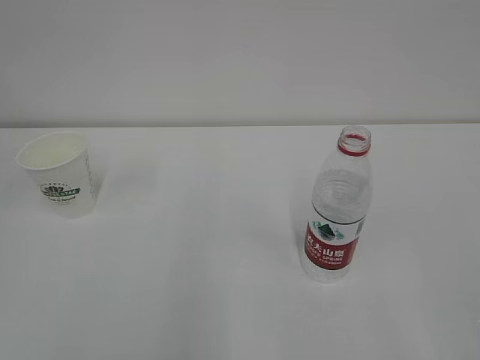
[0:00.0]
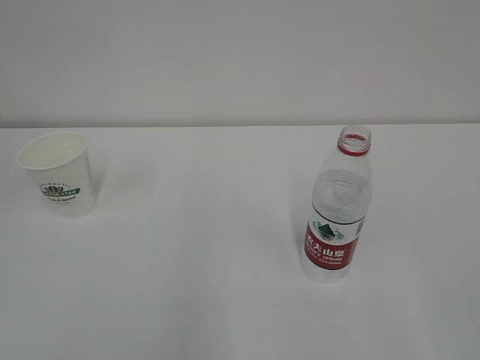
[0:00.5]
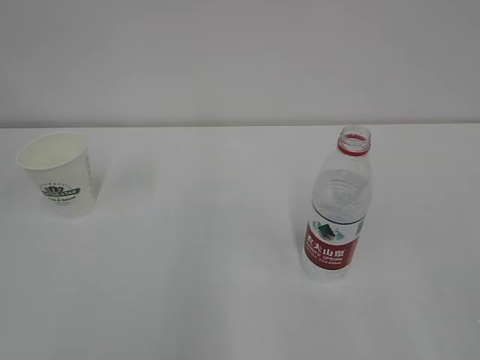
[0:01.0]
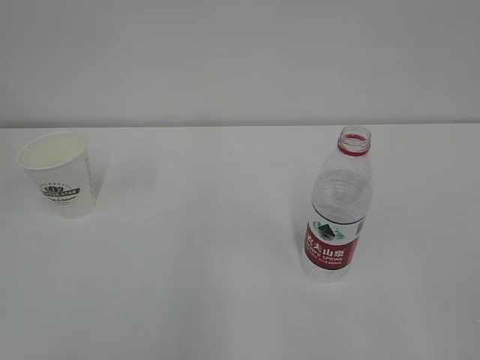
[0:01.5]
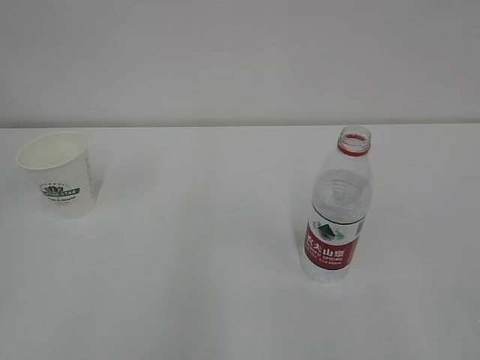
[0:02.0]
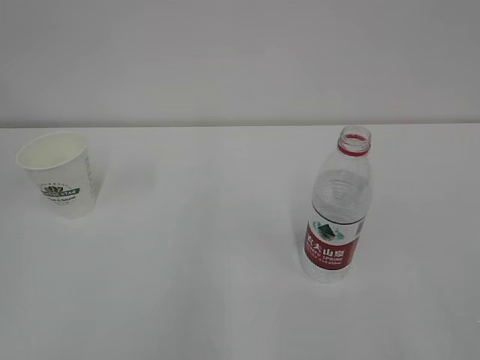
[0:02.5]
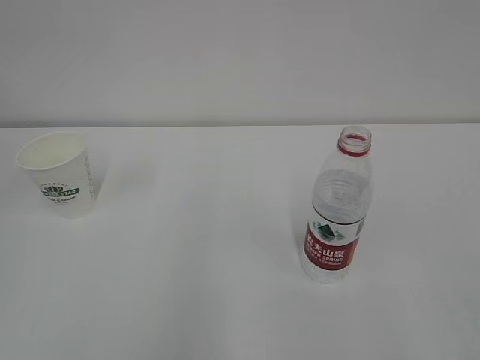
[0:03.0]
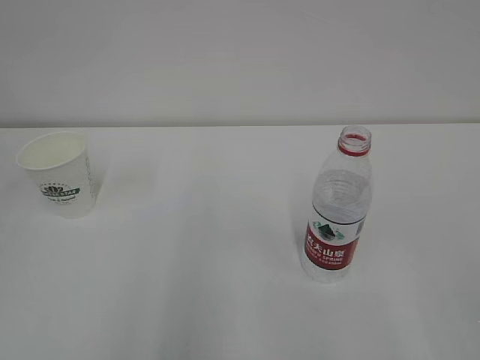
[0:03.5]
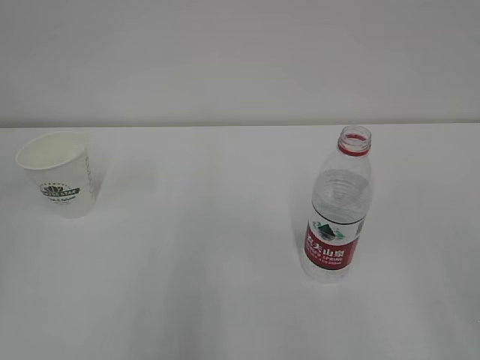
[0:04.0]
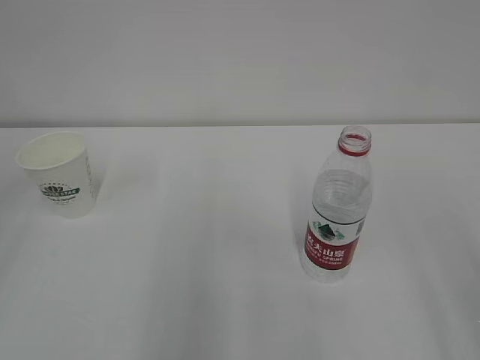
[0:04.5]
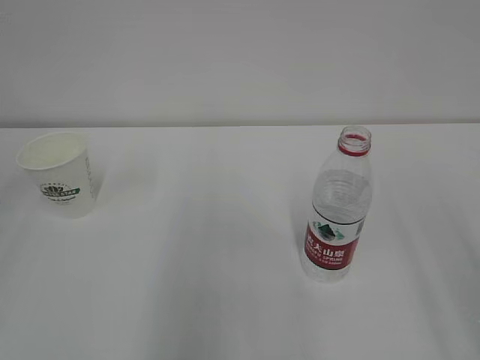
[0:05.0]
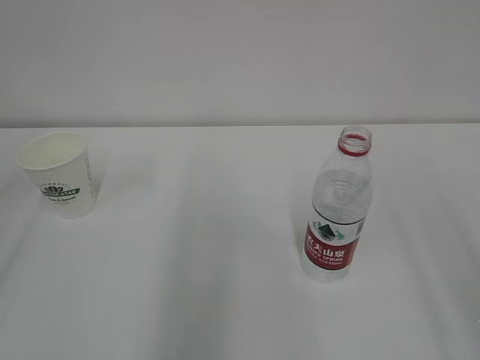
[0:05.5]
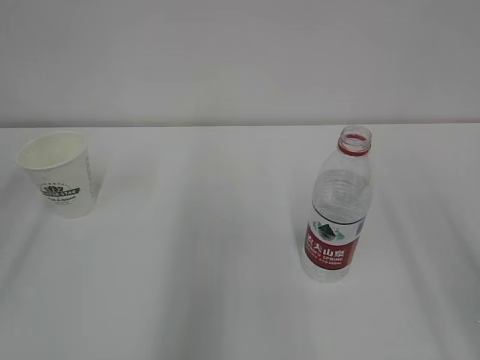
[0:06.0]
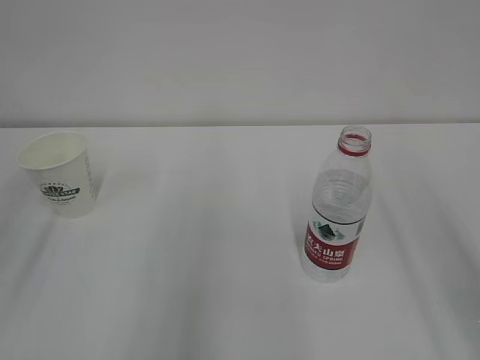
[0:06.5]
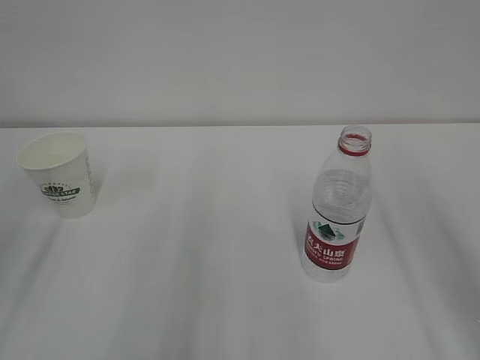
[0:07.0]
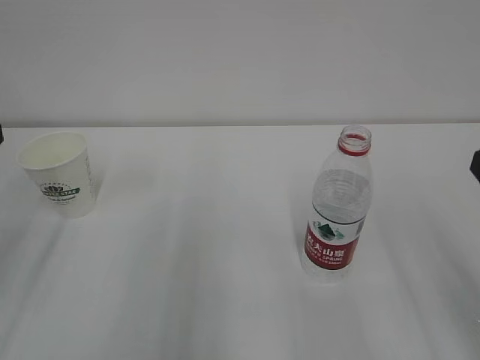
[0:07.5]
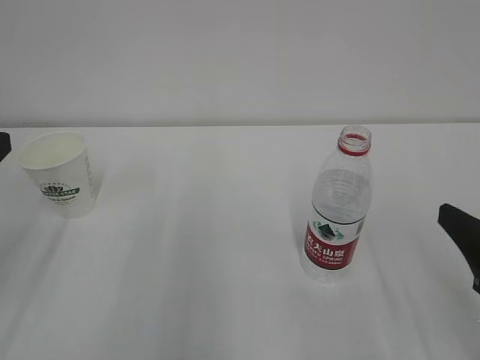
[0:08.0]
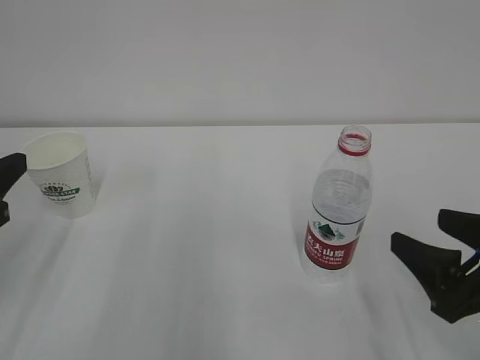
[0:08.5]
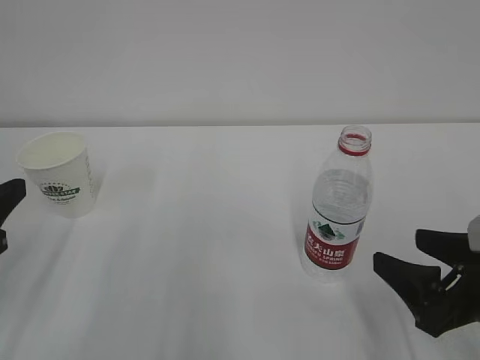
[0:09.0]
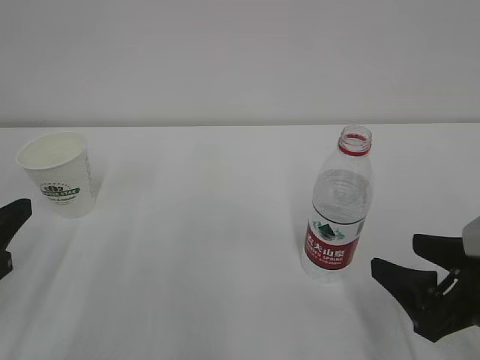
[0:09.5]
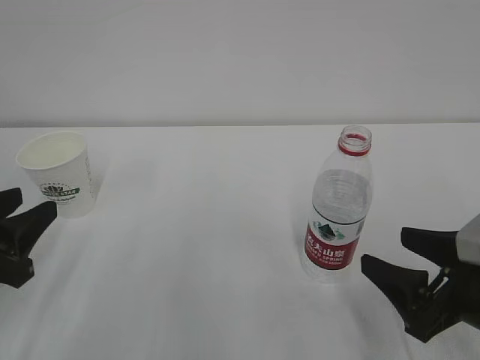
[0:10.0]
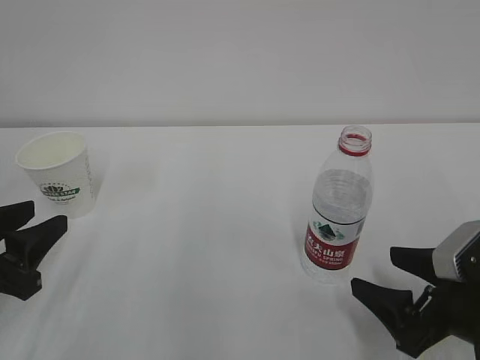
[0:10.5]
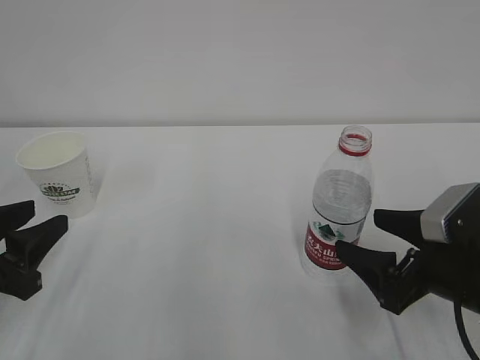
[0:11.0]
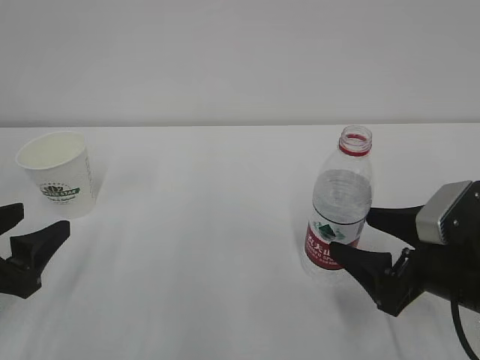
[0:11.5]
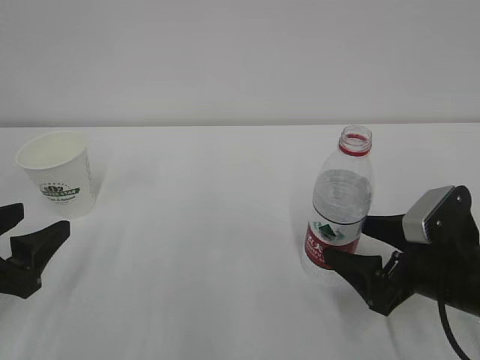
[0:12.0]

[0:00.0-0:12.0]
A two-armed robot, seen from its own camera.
6.0 to 8.0 s: The right gripper moves downward, roughly 15 cm.
8.0 to 10.0 s: Both grippers travel together downward, some 5 cm.
10.0 to 12.0 s: The right gripper travels forward by approximately 5 cm. Meanwhile the left gripper opens up.

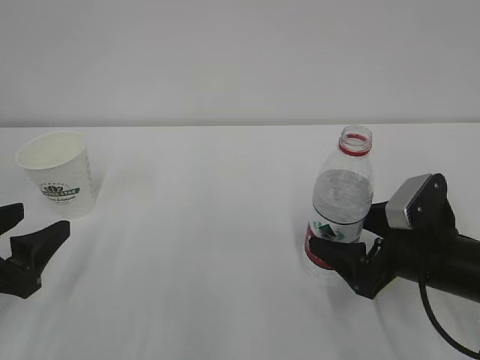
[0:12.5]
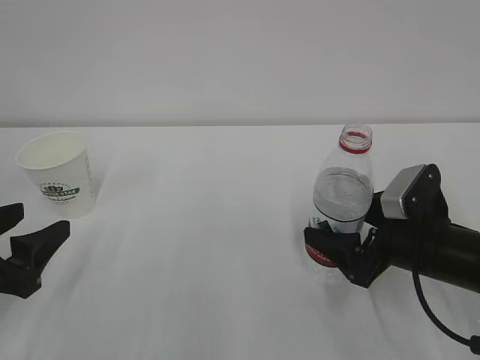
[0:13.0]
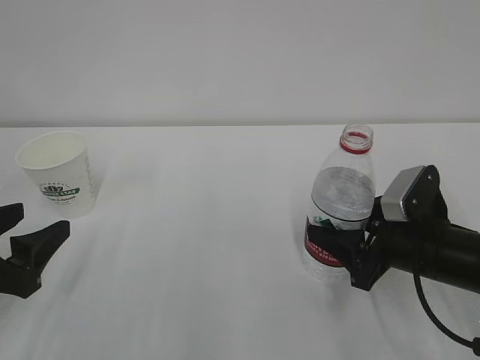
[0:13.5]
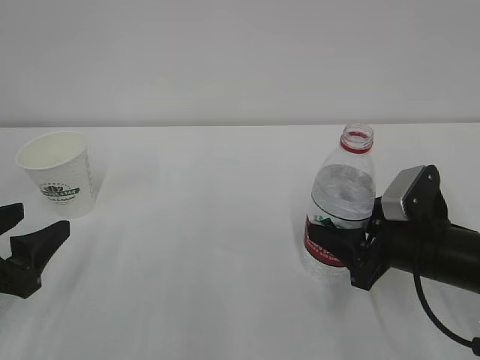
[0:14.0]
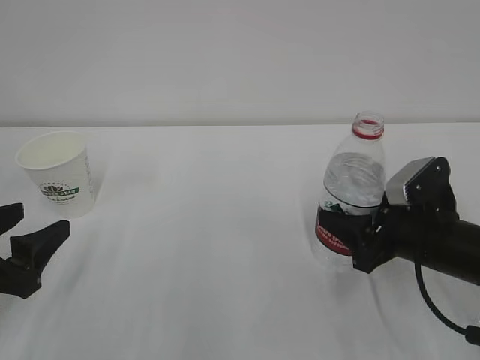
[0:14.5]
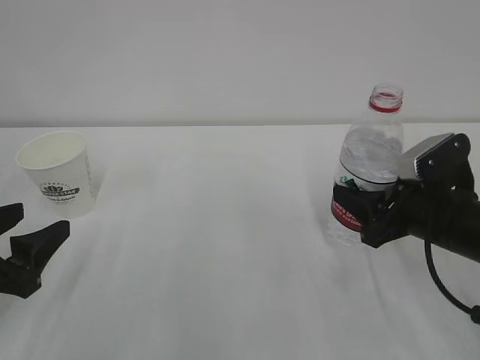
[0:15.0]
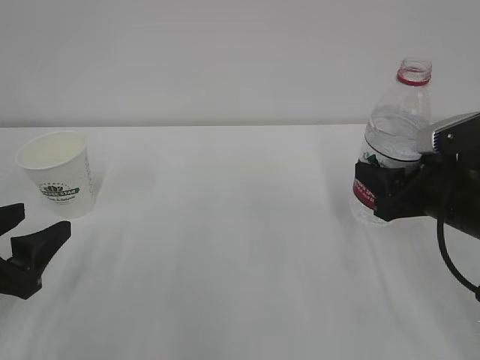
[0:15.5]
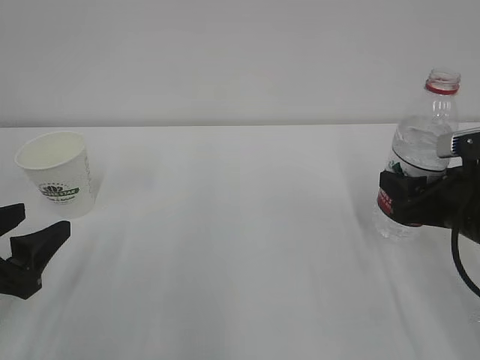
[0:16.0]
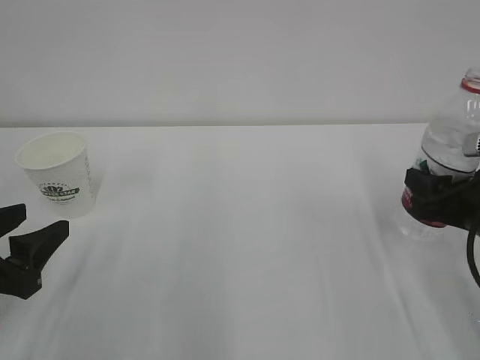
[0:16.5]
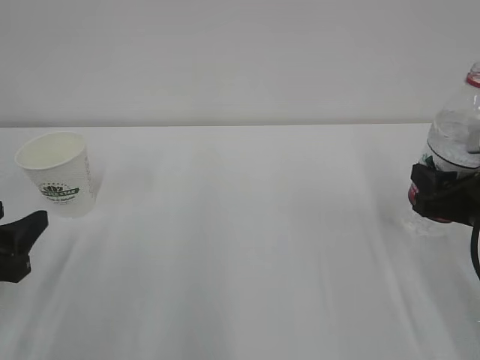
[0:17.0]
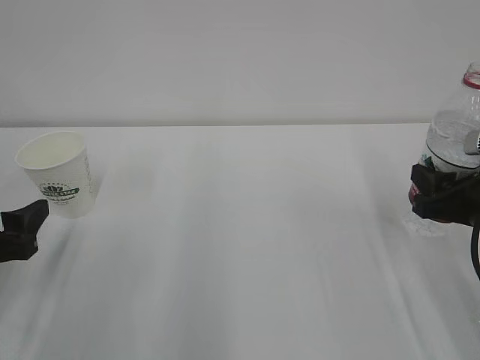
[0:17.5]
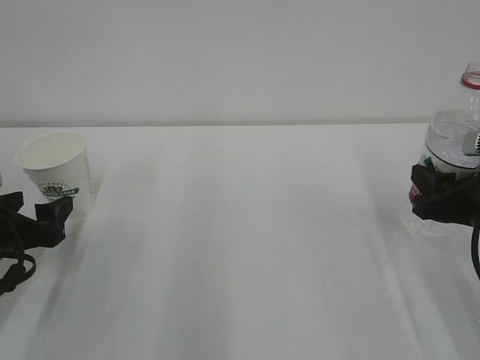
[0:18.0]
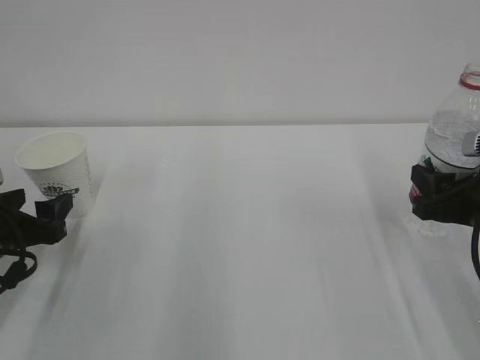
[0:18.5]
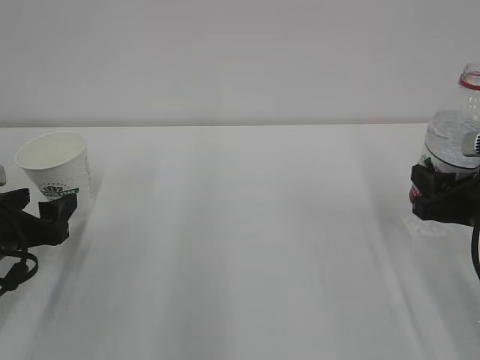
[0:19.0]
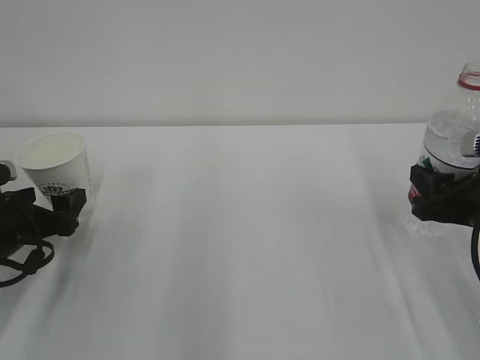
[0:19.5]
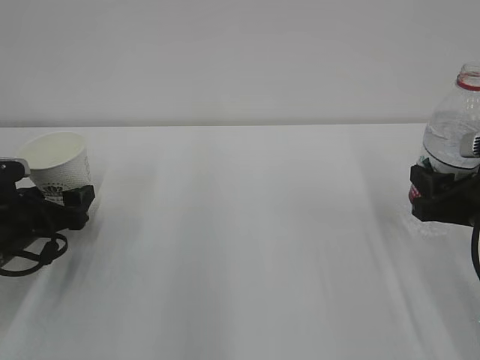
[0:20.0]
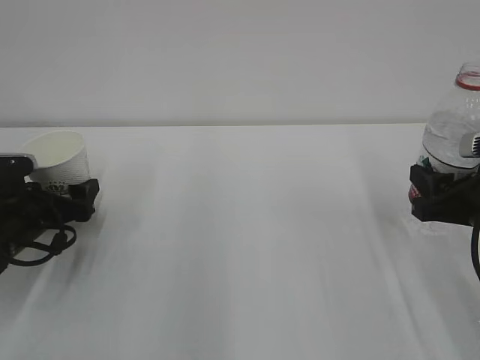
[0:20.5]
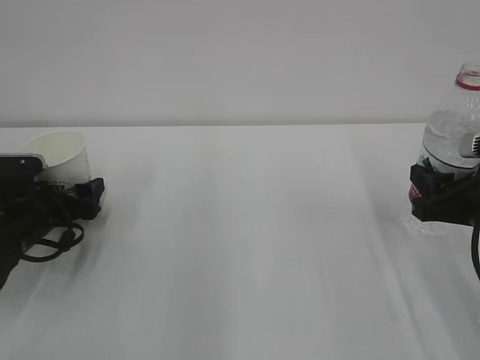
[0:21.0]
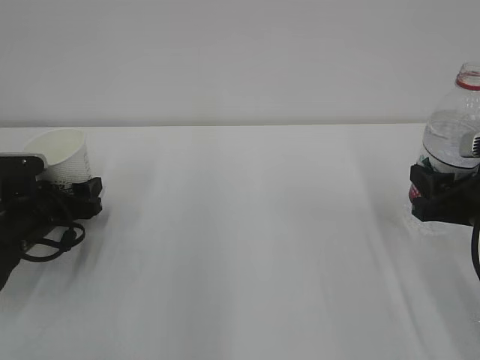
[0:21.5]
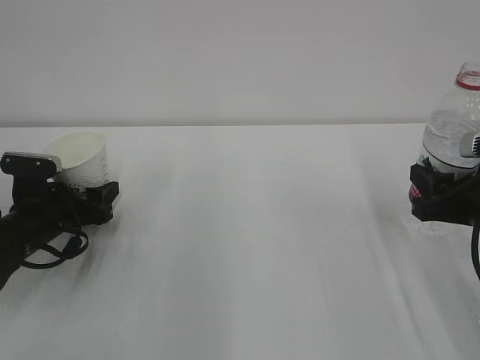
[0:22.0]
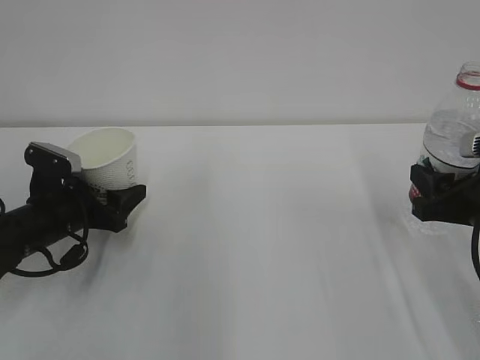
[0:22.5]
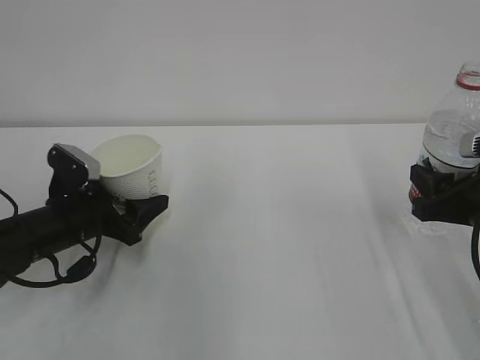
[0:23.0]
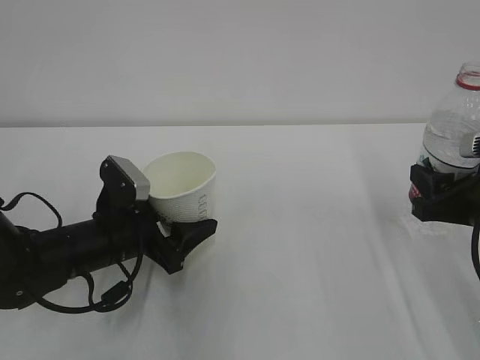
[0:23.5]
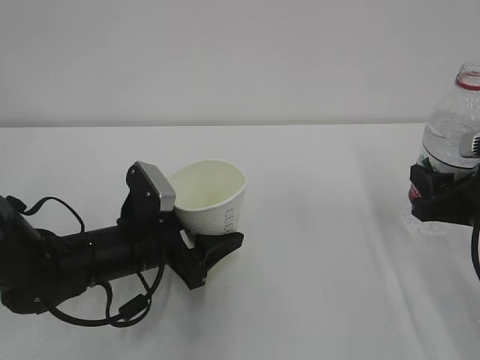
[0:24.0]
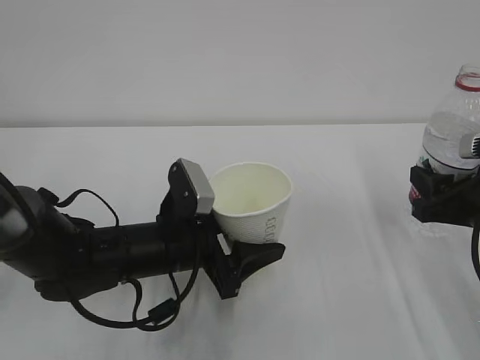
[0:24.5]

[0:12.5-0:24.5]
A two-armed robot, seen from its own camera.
12.5 to 14.5 s: The right gripper closes up.
14.5 to 16.5 s: The right gripper changes place by roughly 5 cm.
16.5 to 18.5 s: The left gripper goes about 5 cm forward.
18.5 to 20.5 s: The left gripper travels forward by roughly 5 cm, and opens its fingers.
20.5 to 22.5 s: The left gripper closes up.
22.5 to 24.5 s: The left gripper is displaced to the right by some 15 cm.

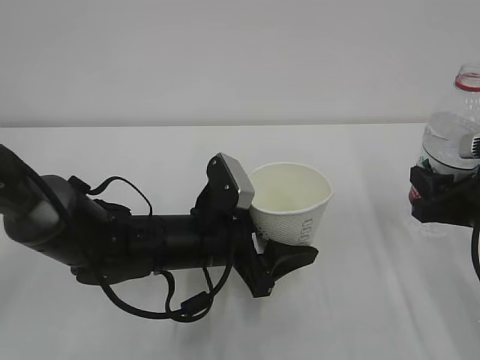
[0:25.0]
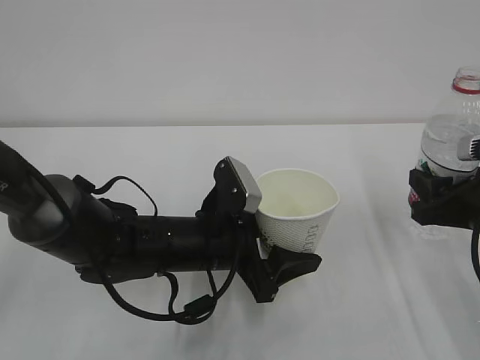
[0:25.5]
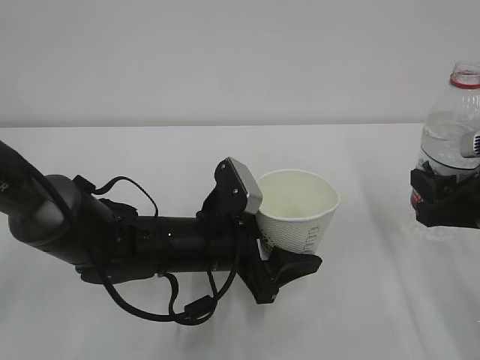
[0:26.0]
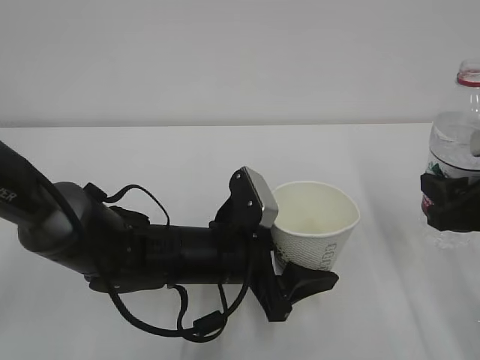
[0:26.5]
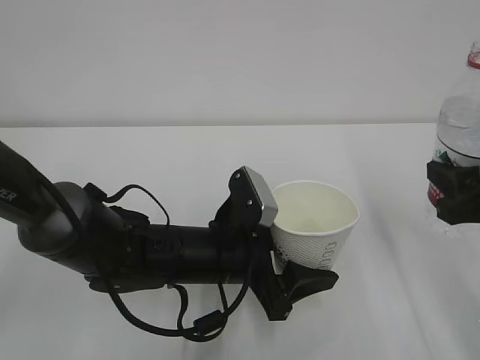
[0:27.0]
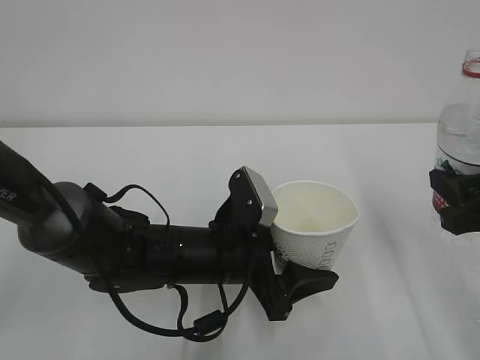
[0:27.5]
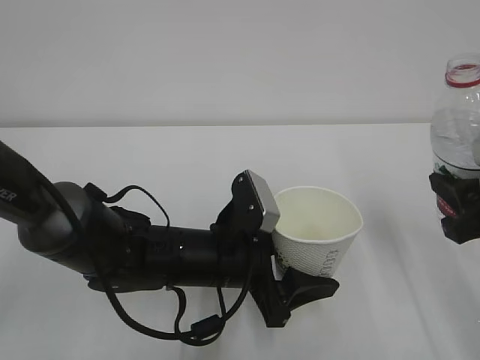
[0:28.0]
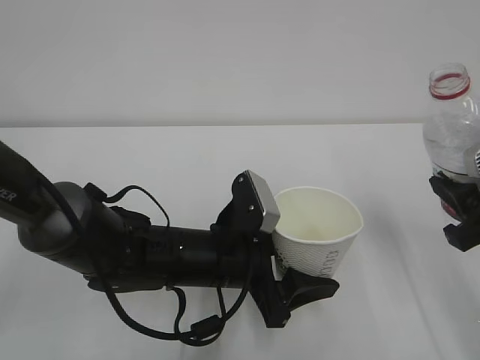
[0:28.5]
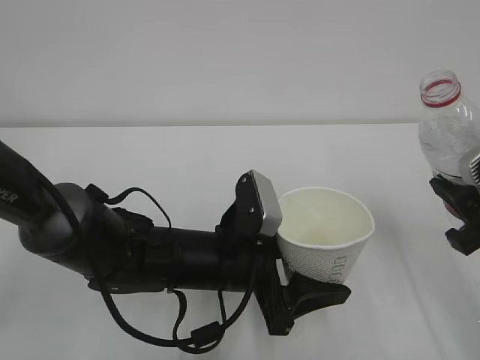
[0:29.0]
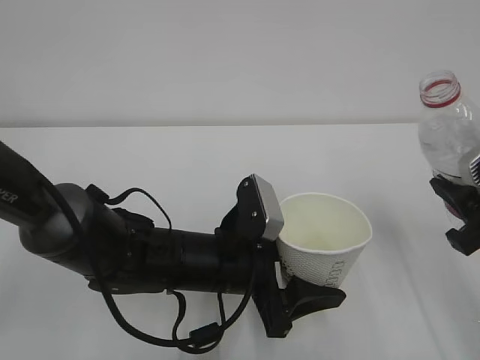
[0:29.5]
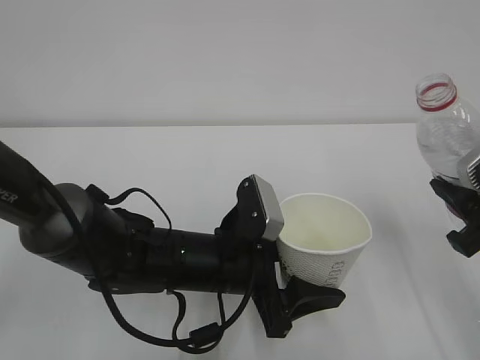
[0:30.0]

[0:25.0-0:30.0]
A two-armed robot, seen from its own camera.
25.0 to 27.5 s: The right gripper moves approximately 5 cm.
